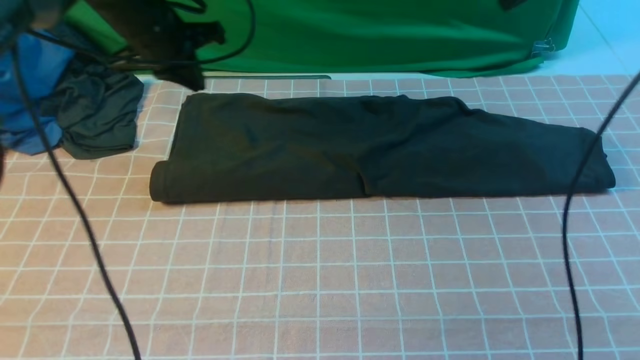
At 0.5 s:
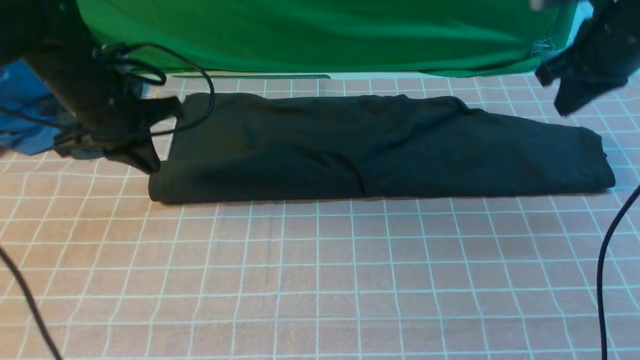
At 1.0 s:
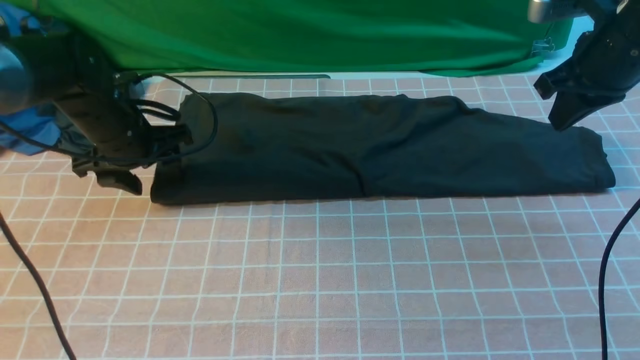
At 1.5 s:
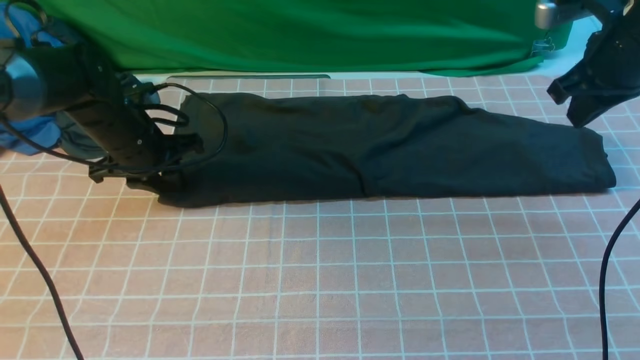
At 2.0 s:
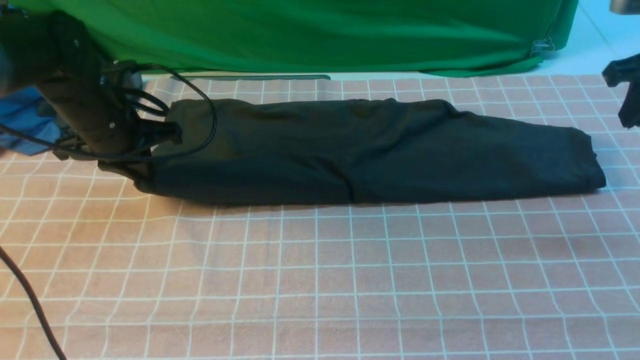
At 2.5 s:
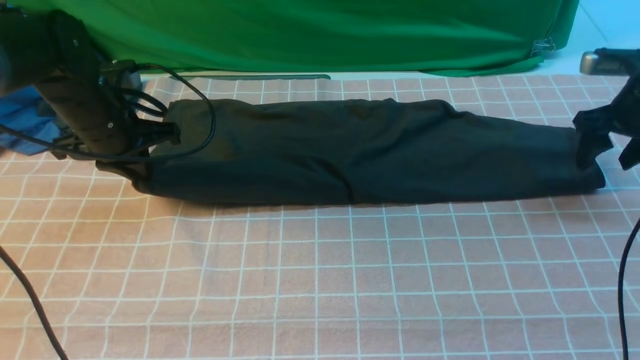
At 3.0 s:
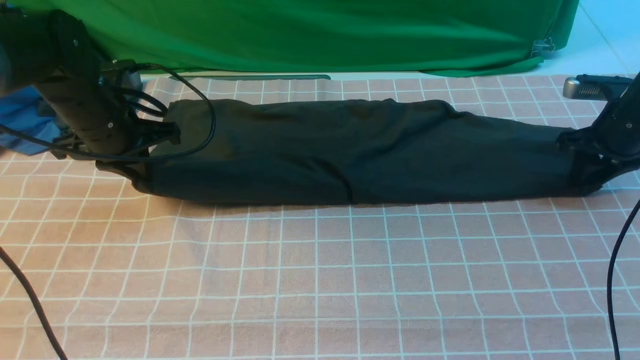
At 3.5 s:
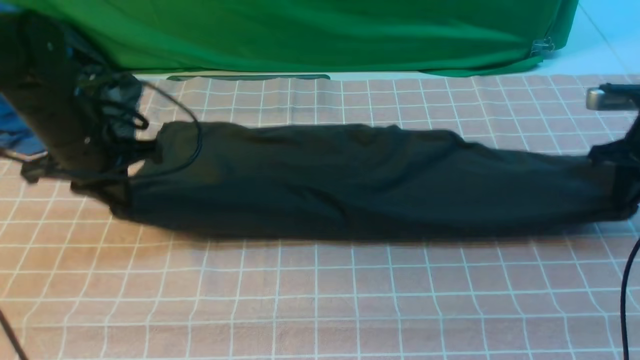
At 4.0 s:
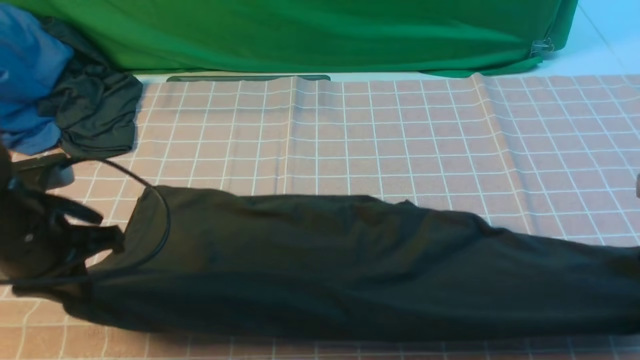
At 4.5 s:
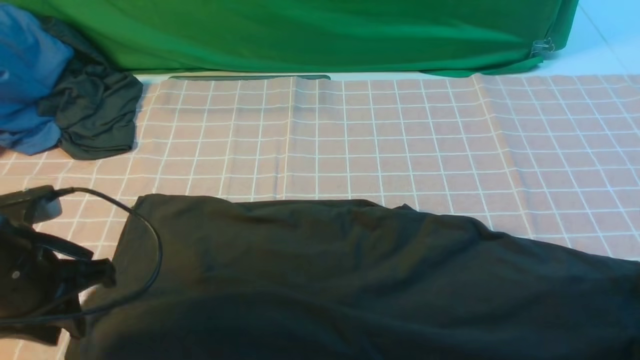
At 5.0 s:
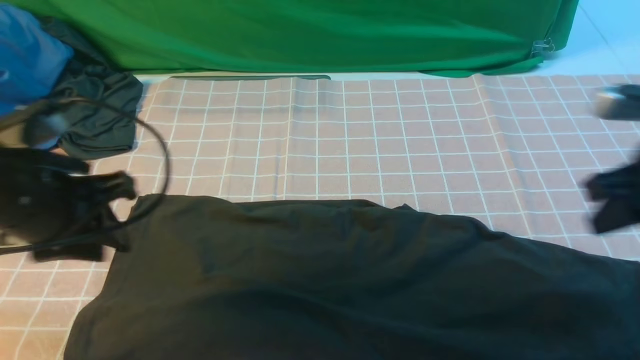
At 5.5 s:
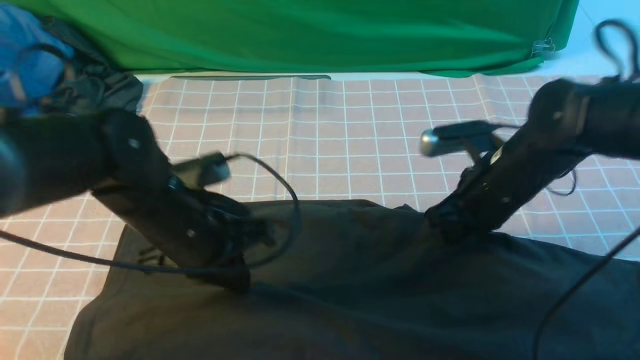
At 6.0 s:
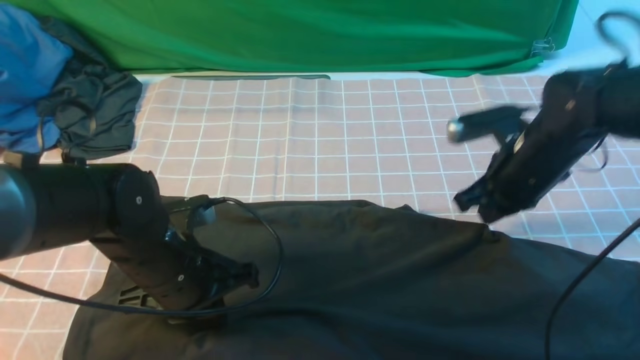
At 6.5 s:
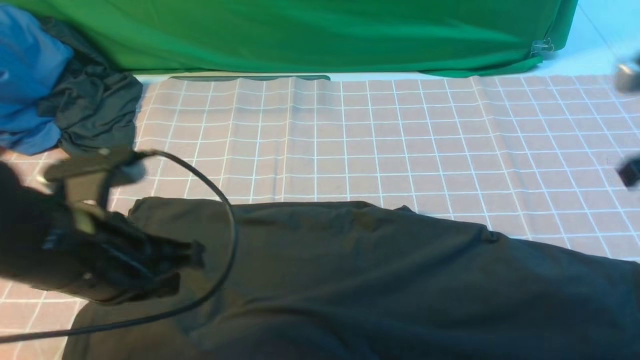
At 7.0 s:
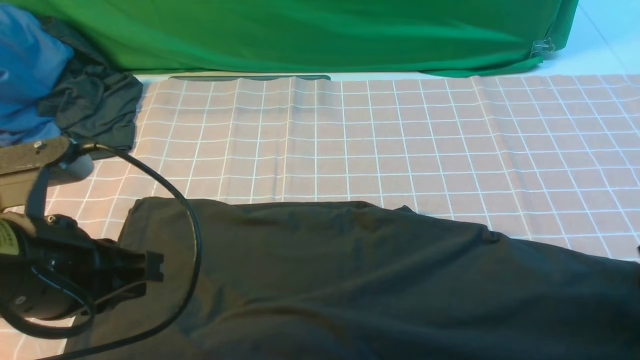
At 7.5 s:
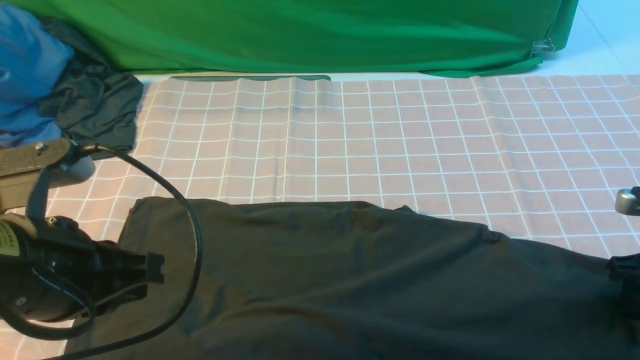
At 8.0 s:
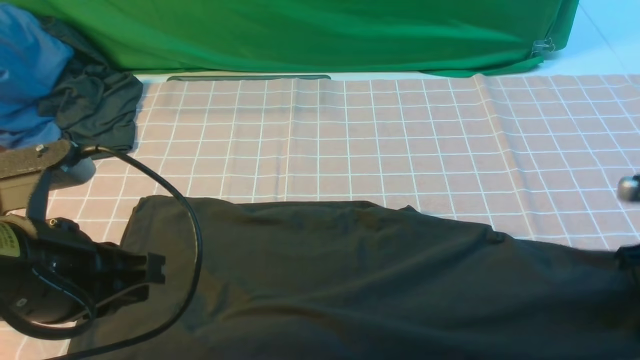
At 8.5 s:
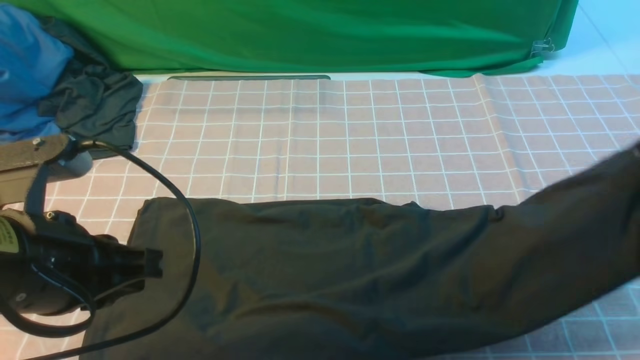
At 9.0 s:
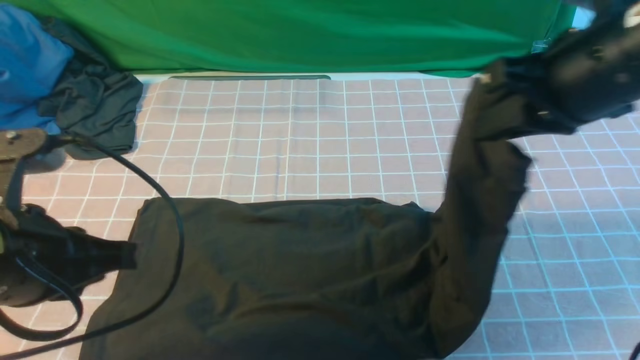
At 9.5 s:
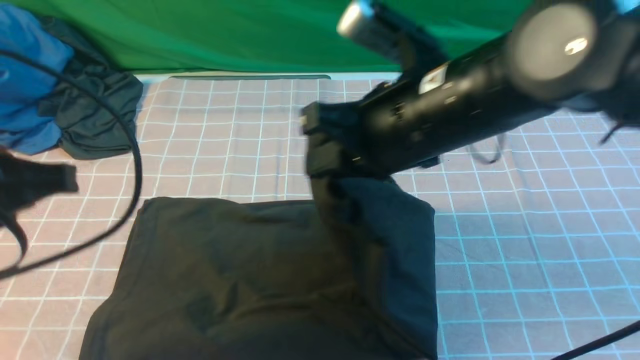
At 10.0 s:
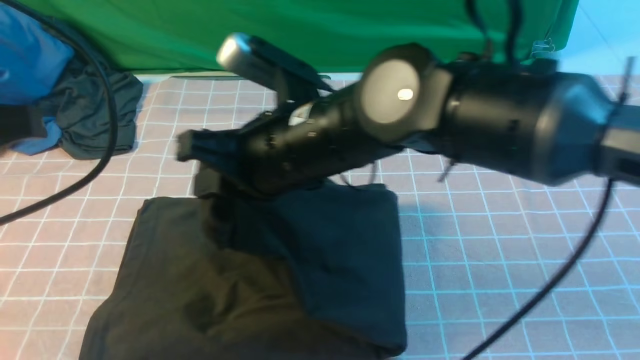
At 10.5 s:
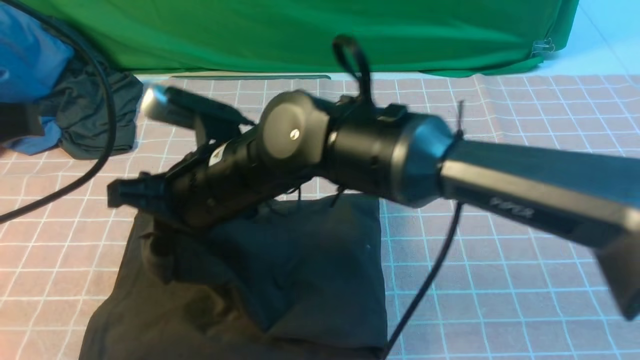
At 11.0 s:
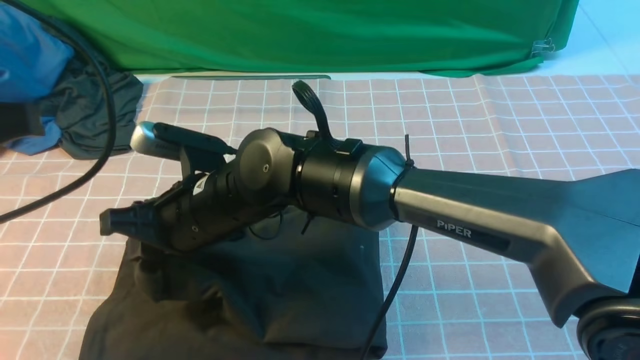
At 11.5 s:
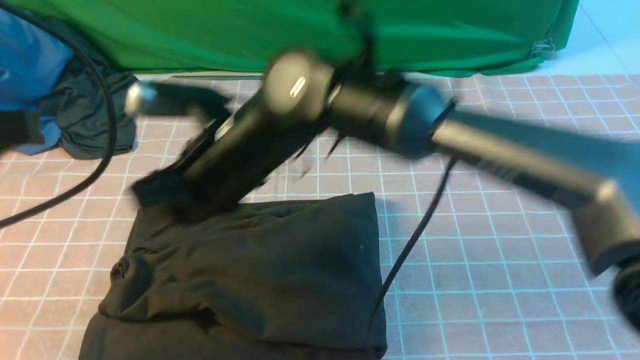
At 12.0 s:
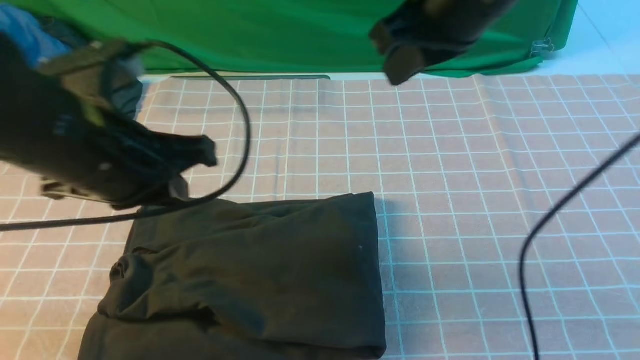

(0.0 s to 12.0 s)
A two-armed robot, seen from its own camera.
Step, 0.0 s - 8.0 s: use the right arm to clamp the right edge of the fabric.
Step, 8.5 s - 11.0 s: use the right arm to drag the right edge of the fabric to the left and folds it over the left edge.
0.0 s - 2.0 s: The right gripper moves to the right, downward and backward, roughly 15 cm, and opens. The left gripper is displaced backward and downward by some 10 cm, and opens and closes again.
2.0 s - 4.0 s: The left gripper is displaced backward by roughly 15 cm. Meanwhile the right gripper travels backward and downward by approximately 15 cm, and opens, then closes again.
4.0 s - 6.0 s: The left gripper is displaced to the right and downward by about 10 cm, and opens and closes again. Meanwhile the right gripper heads to the left and forward, covering some 15 cm, and opens, then closes again.
6.0 s - 8.0 s: The right gripper travels to the right and backward by some 15 cm, and opens, then closes again, while the left gripper travels upward and backward by some 15 cm.
8.0 s - 10.0 s: The left gripper is displaced upward by about 10 cm; the right gripper travels to the left by roughly 40 cm.
10.0 s - 12.0 s: The right gripper is displaced to the right and upward by about 15 cm; the left gripper is displaced downward, forward and to the right by about 15 cm.

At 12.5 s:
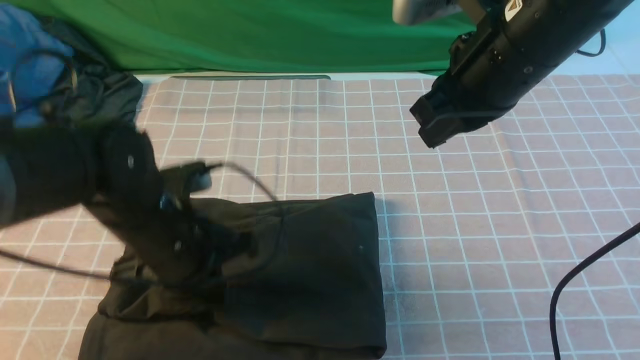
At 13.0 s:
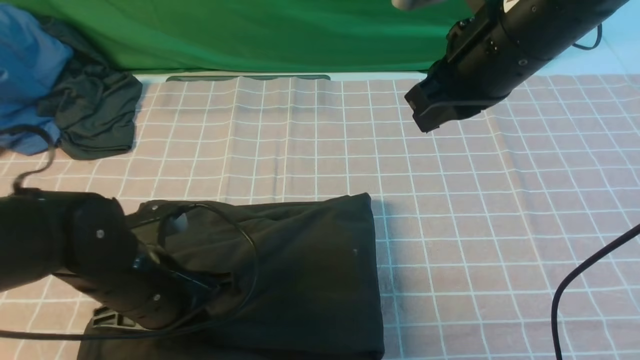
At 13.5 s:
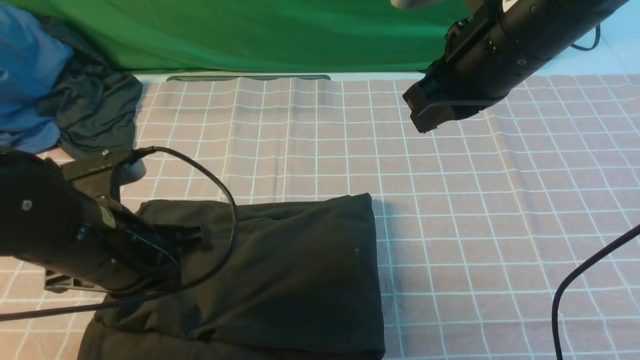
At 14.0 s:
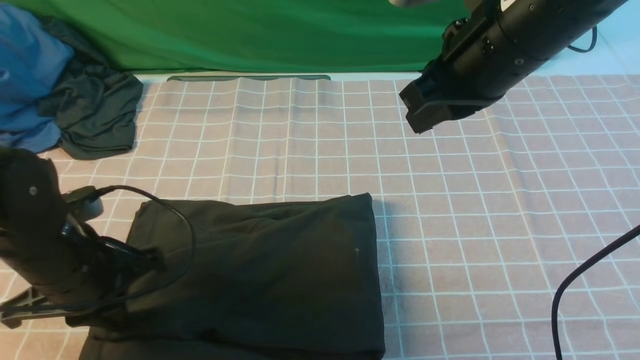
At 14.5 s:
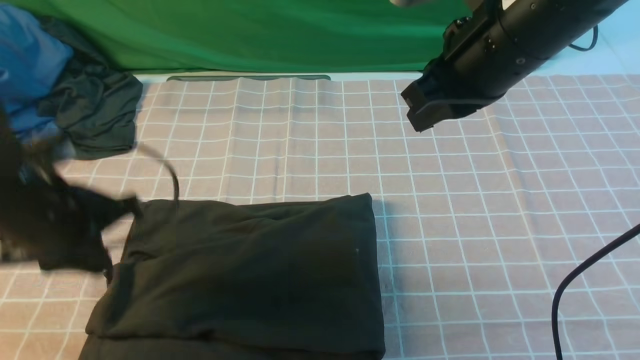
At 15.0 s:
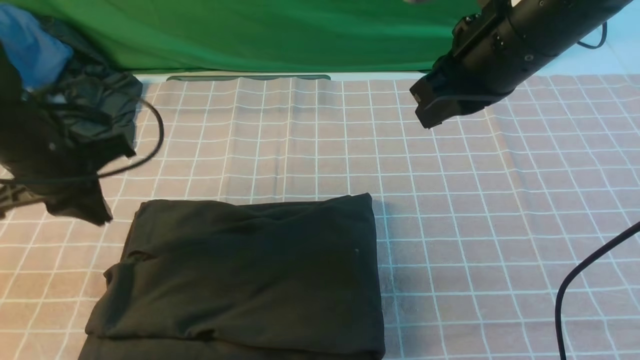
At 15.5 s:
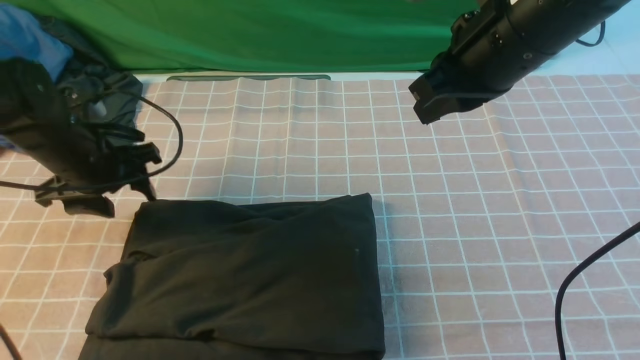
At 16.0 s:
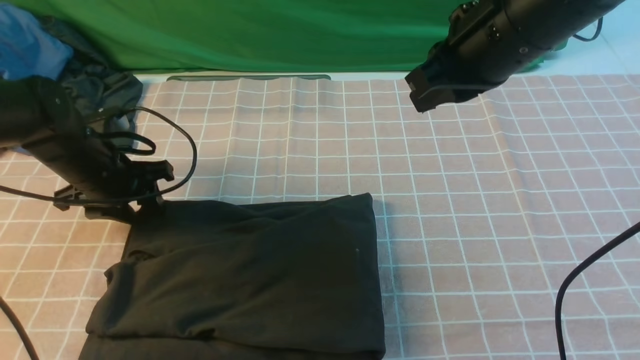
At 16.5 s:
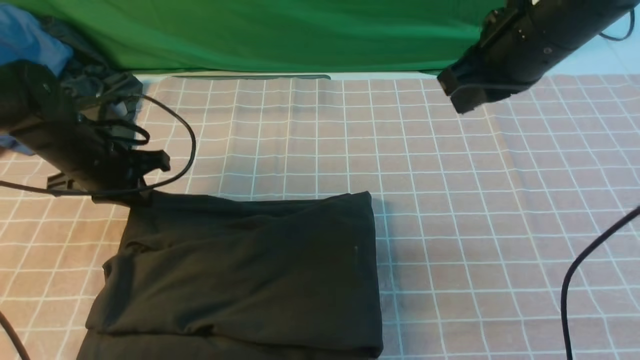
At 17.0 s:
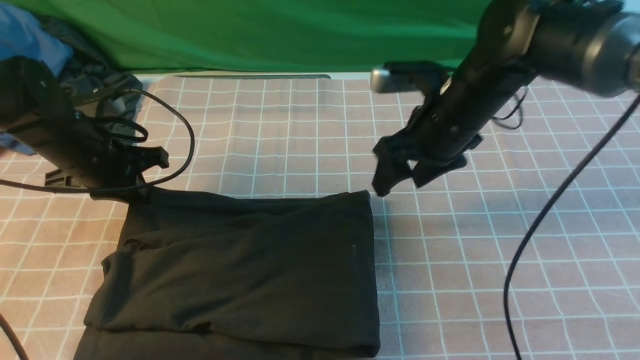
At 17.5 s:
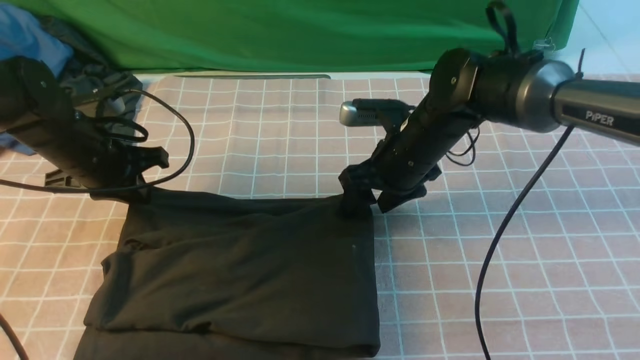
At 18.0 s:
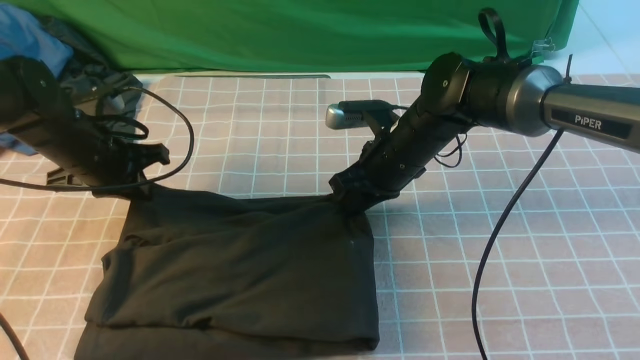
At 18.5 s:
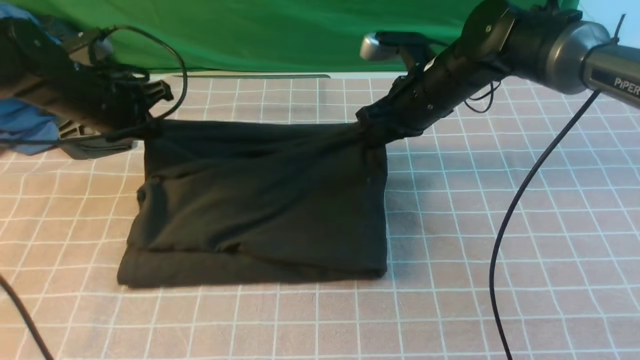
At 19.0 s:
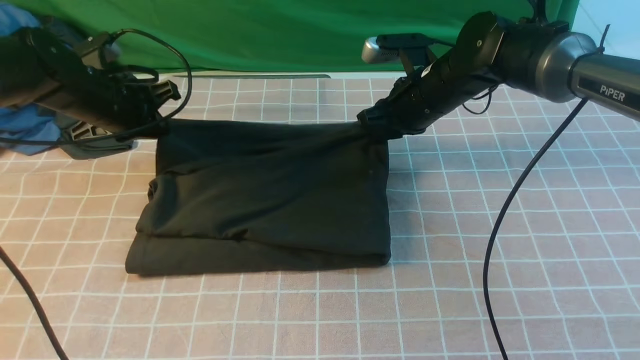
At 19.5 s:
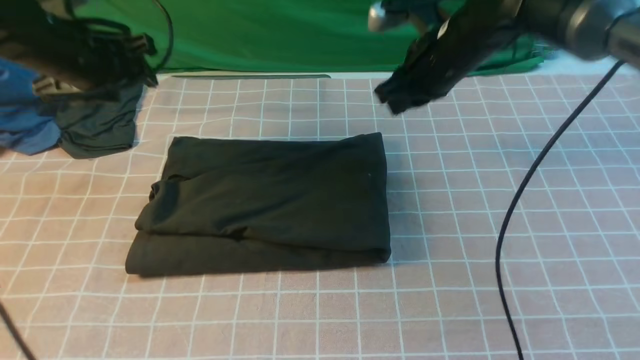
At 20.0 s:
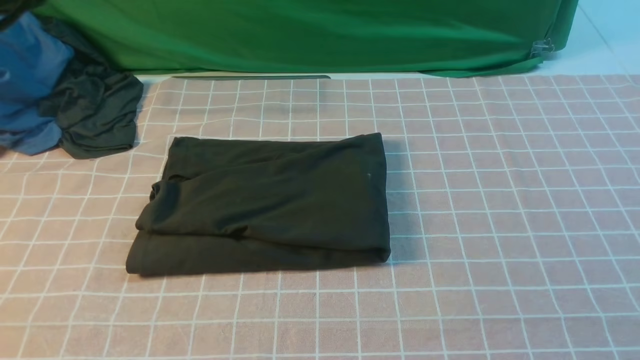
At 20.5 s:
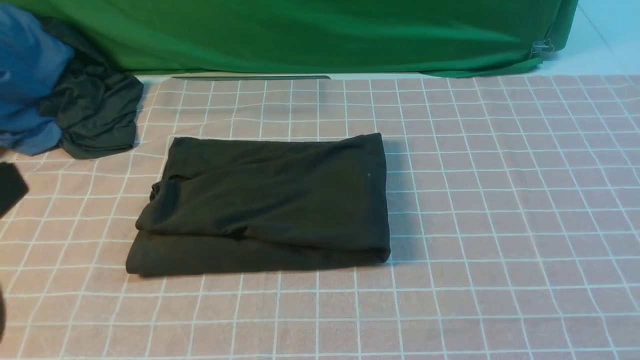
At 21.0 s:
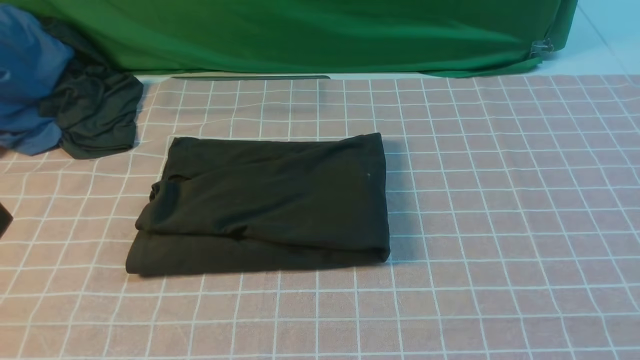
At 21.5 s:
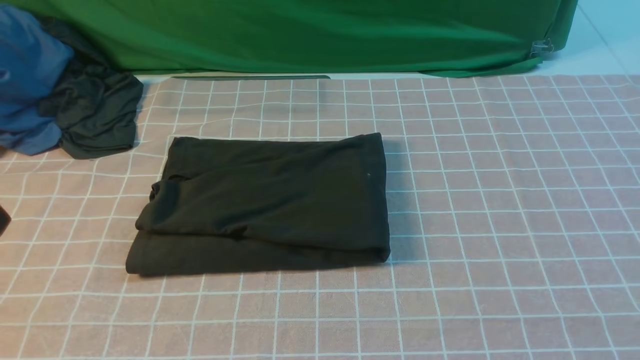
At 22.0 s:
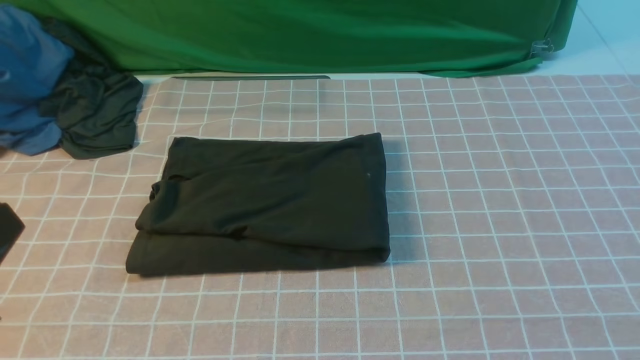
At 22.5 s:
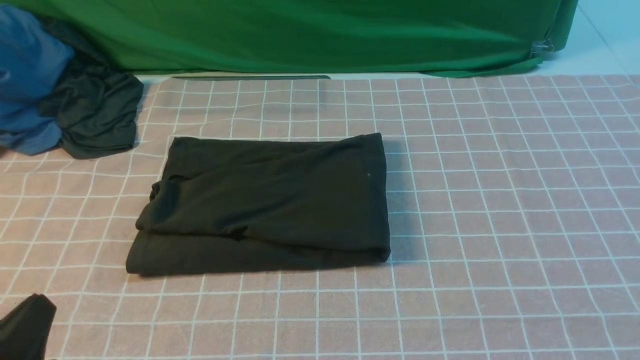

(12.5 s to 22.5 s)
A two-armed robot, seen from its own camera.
12.5 s - 14.5 s: The left gripper heads to the left and upward, covering some 10 cm.
14.5 s - 16.5 s: The left gripper moves forward and downward, some 15 cm, and opens and closes again, while the right gripper shifts by approximately 5 cm.
16.5 s - 18.5 s: The left gripper shifts by about 5 cm. The right gripper goes roughly 15 cm downward and forward, and opens and closes again.
18.5 s - 20.5 s: The right gripper is displaced backward, upward and to the right by approximately 40 cm; the left gripper goes roughly 35 cm backward and upward, and opens, then closes again.
20.5 s - 22.5 s: The left gripper heads downward, covering about 15 cm.
